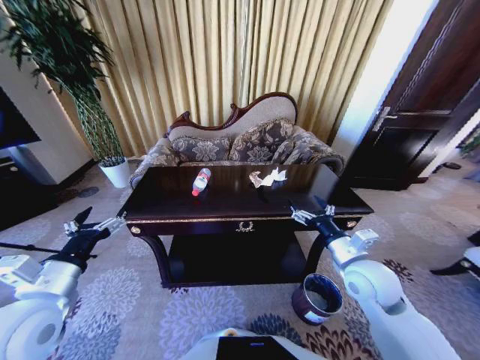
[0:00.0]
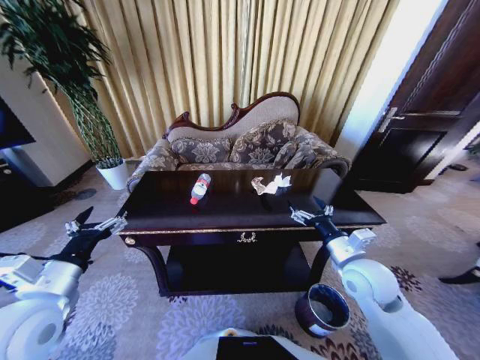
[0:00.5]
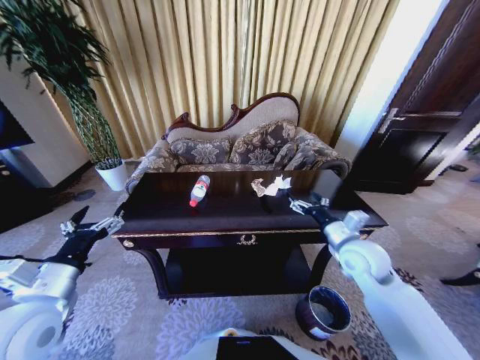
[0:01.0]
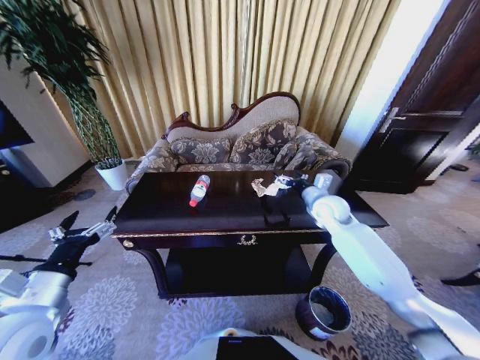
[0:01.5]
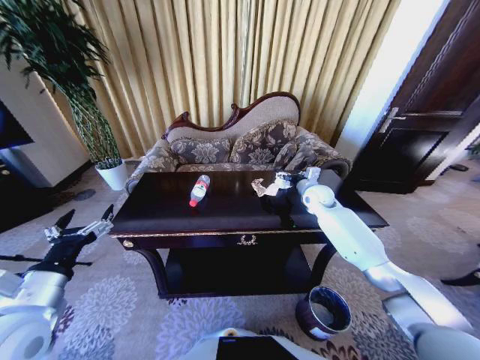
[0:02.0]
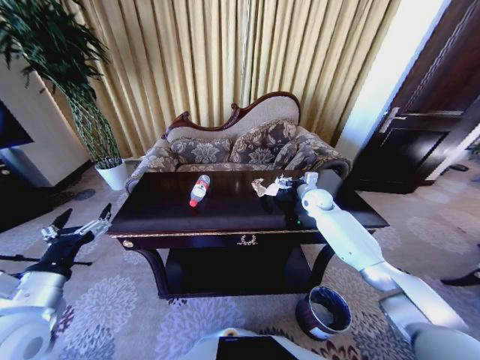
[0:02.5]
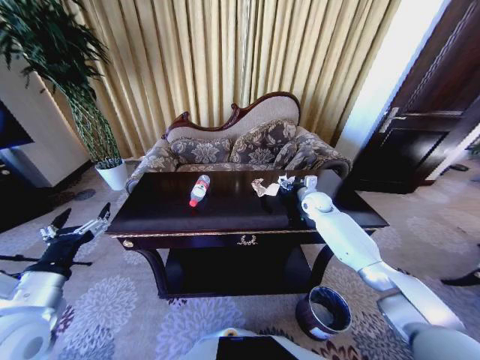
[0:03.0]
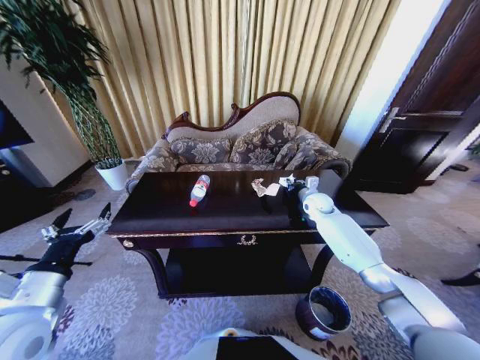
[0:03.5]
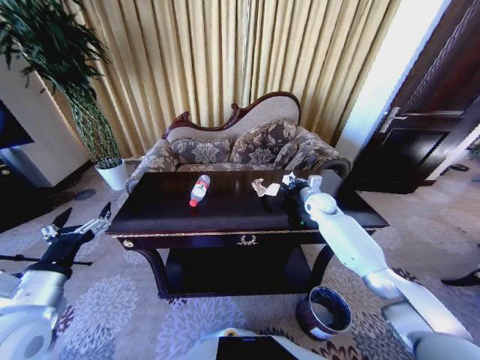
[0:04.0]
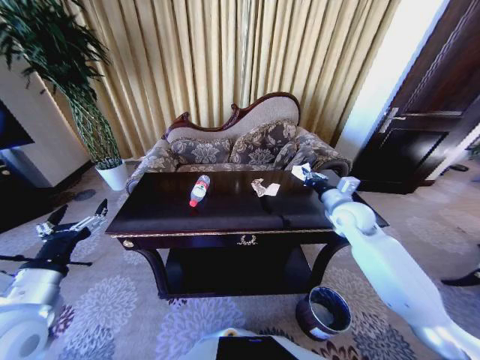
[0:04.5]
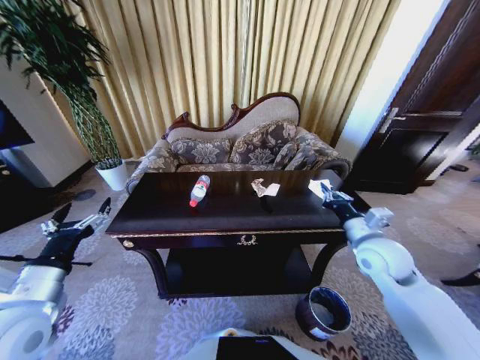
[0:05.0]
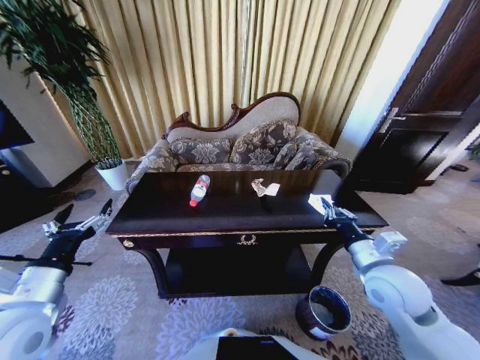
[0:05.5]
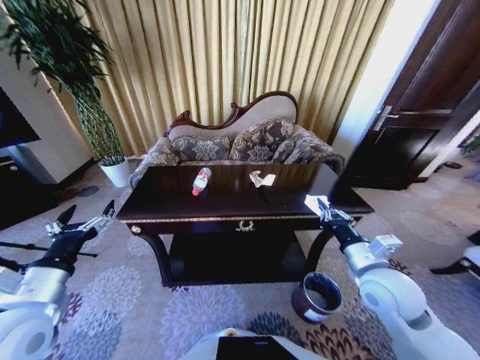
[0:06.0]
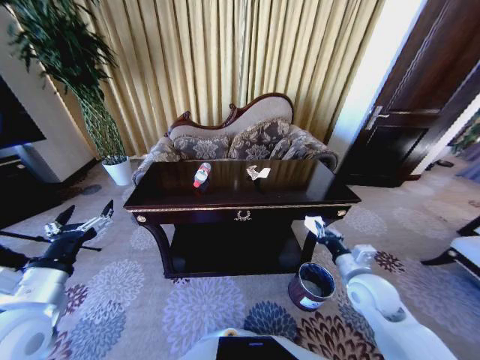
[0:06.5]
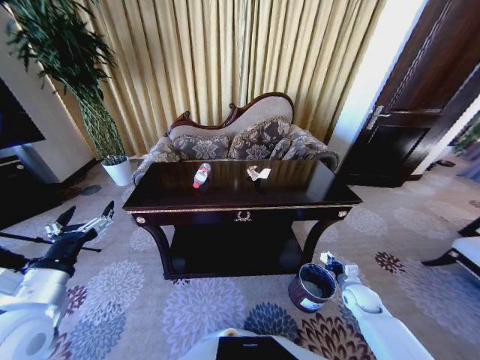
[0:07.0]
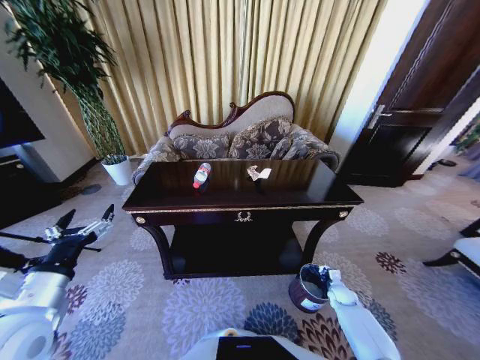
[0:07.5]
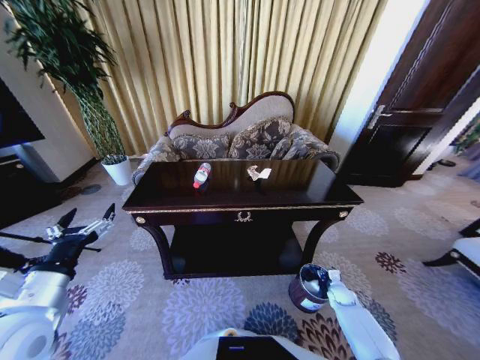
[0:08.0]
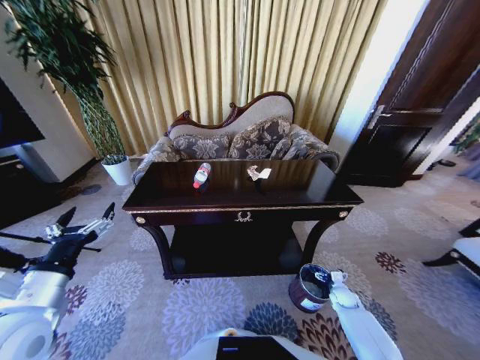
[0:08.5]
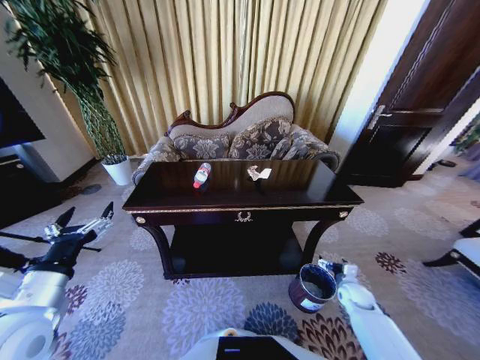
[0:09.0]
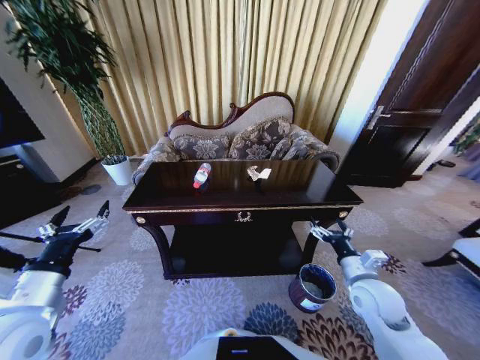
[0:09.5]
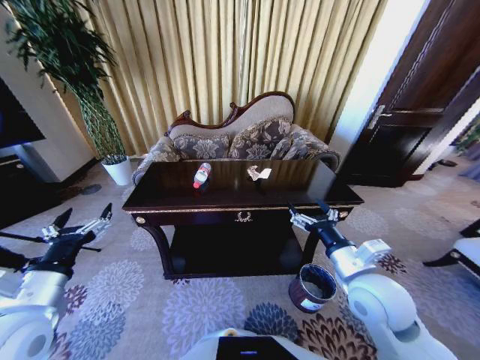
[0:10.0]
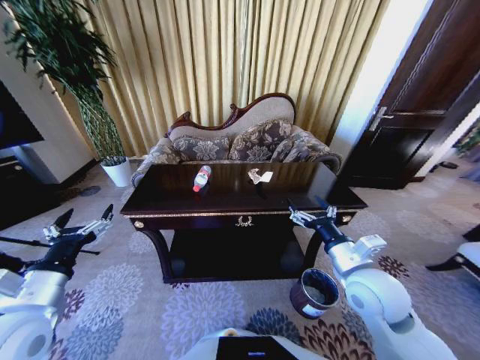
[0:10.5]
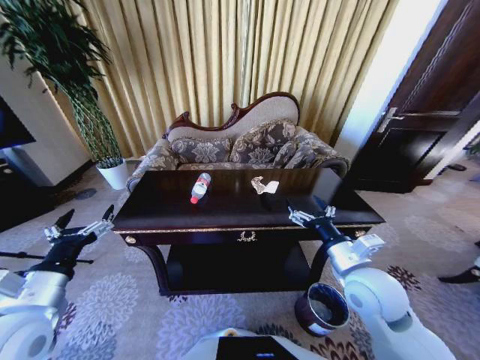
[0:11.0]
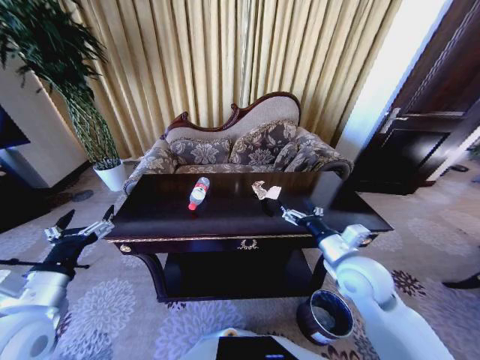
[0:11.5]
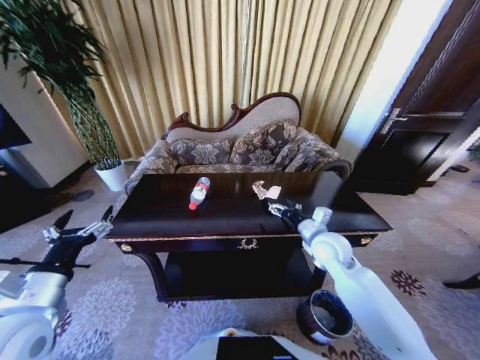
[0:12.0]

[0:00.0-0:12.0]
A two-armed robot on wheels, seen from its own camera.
Task of the whole recording: Move to the front of the table and place the trash on the table into the trash bin.
0:00.0 to 0:02.0: The right gripper shifts approximately 30 cm forward.
0:02.0 to 0:04.0: The right gripper closes its fingers.
0:04.0 to 0:06.0: The right gripper travels backward by roughly 30 cm.
0:06.0 to 0:08.0: The right gripper travels downward by about 35 cm, and opens.
0:08.0 to 0:10.0: The right gripper heads upward and to the left, covering approximately 40 cm, and opens up.
0:10.0 to 0:12.0: The right gripper is displaced forward by approximately 15 cm.

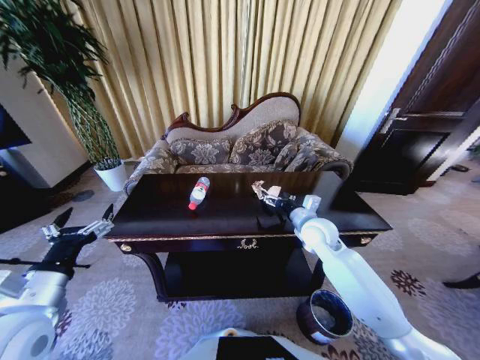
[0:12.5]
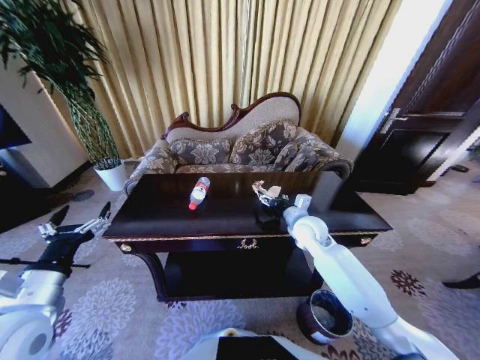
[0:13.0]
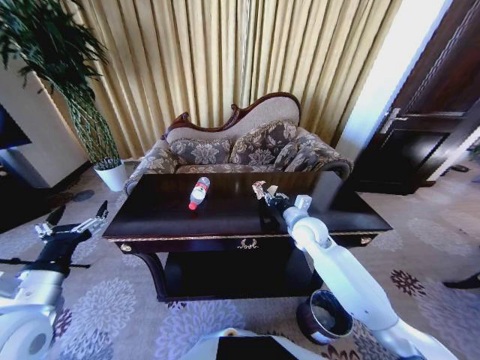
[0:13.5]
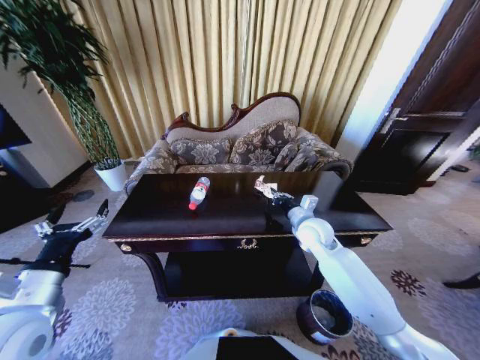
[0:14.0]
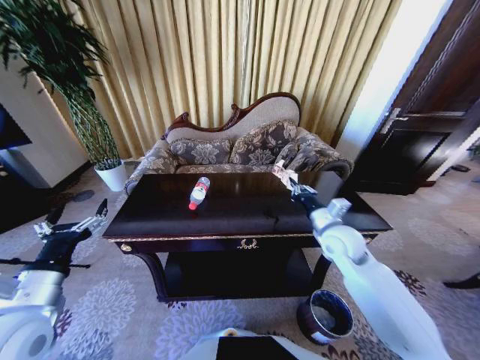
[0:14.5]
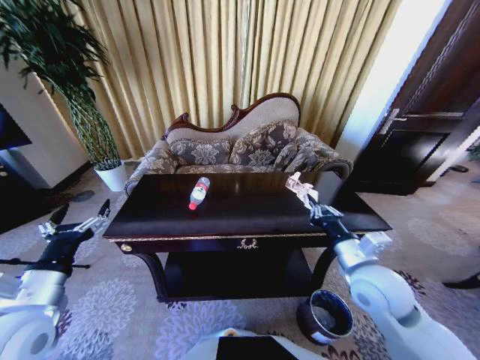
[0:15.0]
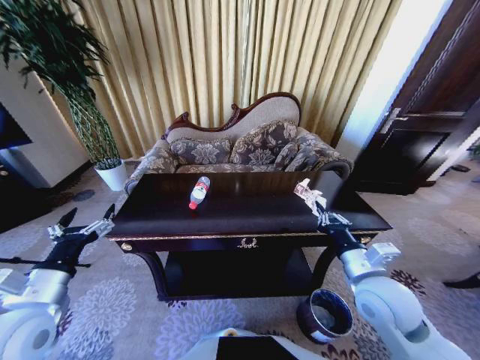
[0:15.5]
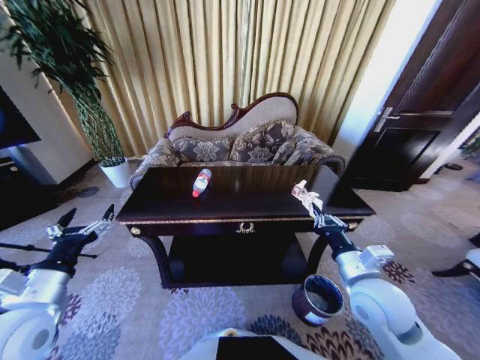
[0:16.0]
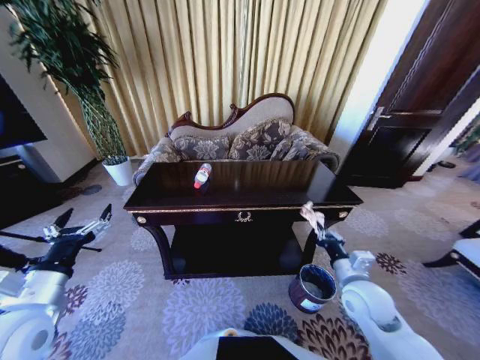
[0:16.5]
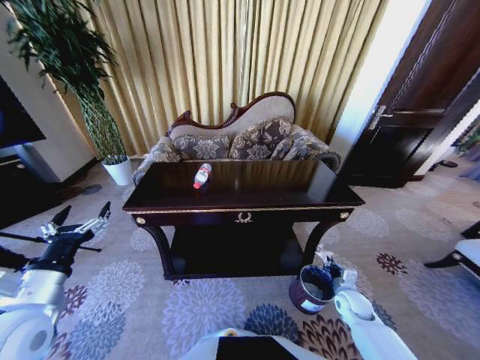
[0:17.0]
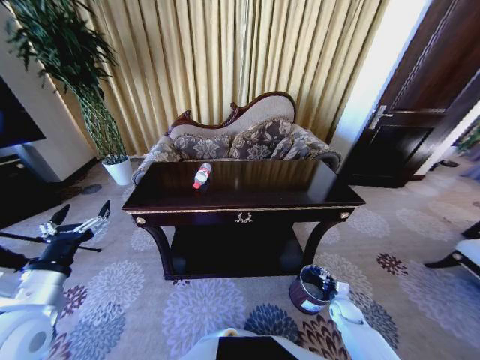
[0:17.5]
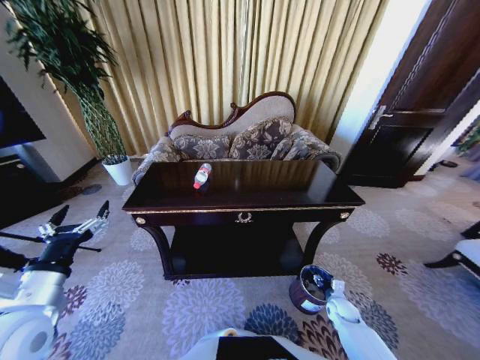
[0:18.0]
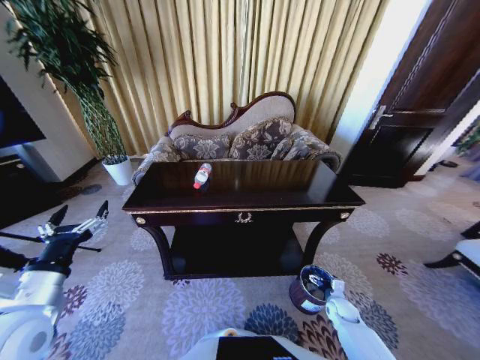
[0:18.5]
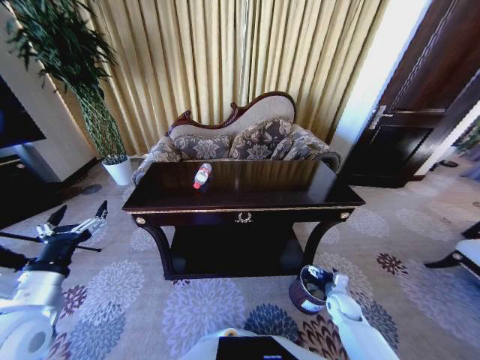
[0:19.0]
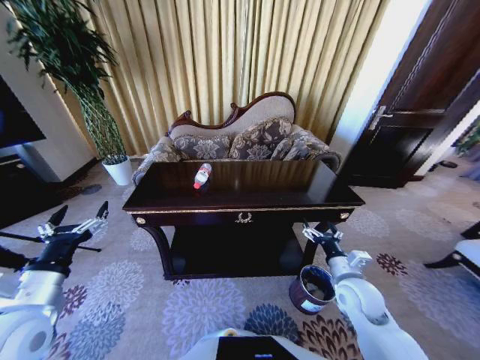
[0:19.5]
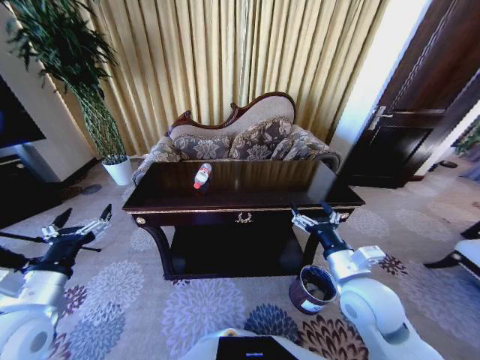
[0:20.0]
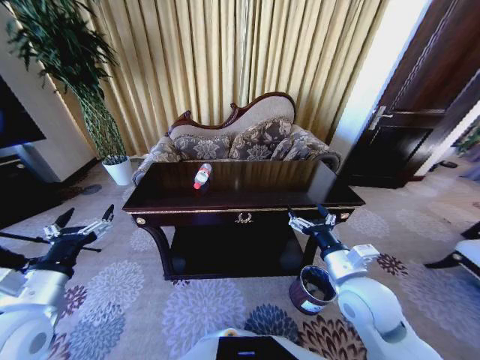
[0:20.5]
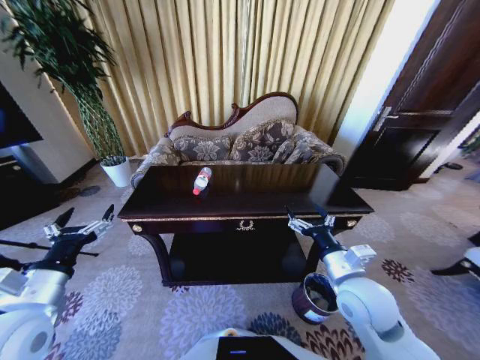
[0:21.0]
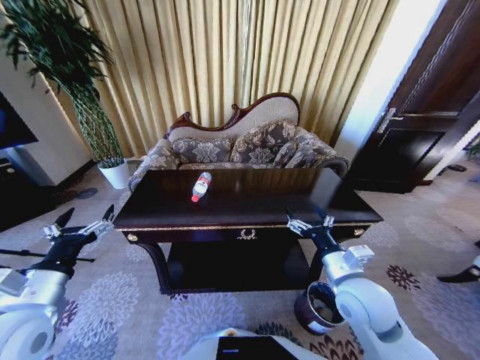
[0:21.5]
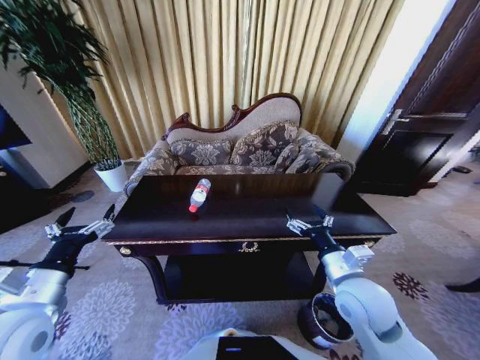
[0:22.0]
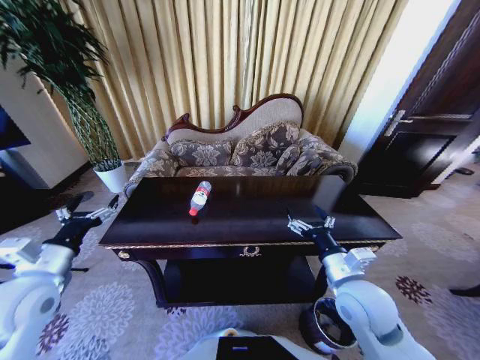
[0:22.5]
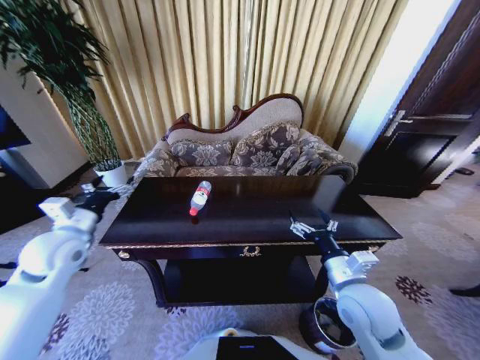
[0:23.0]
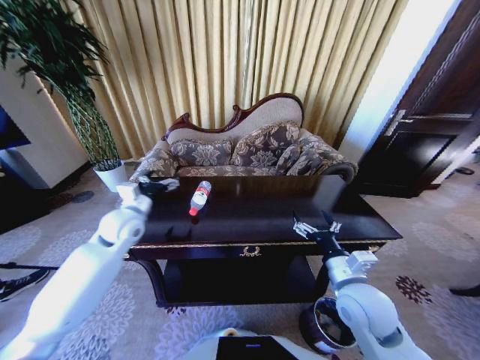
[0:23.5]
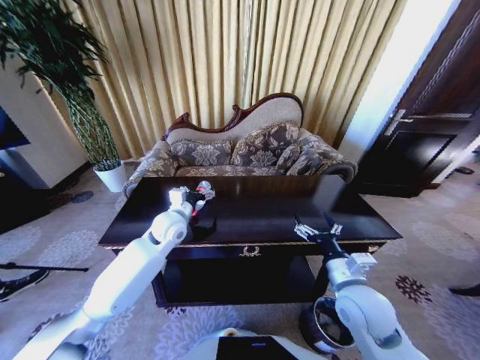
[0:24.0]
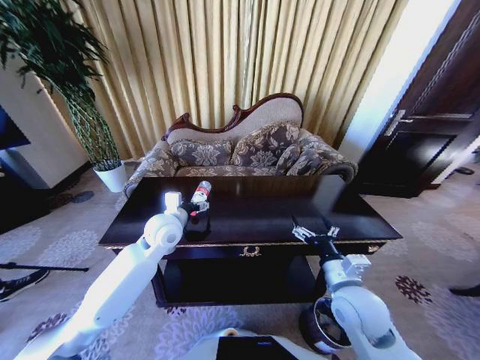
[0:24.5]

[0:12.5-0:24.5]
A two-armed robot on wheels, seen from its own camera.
Task of the whole recording: Move to the front of the table and place the trash on the table into the trash bin.
0:12.5 to 0:14.5: The right gripper ends up about 5 cm from where it was, and closes up.
0:14.5 to 0:16.5: The right gripper shifts some 15 cm backward and downward.
0:16.5 to 0:18.5: The right gripper shifts roughly 25 cm downward, and opens up.
0:18.5 to 0:20.5: The right gripper goes some 35 cm upward and to the left.
0:20.5 to 0:22.5: The left gripper shifts some 5 cm forward.
0:22.5 to 0:24.5: The left gripper moves to the right and forward, roughly 25 cm.

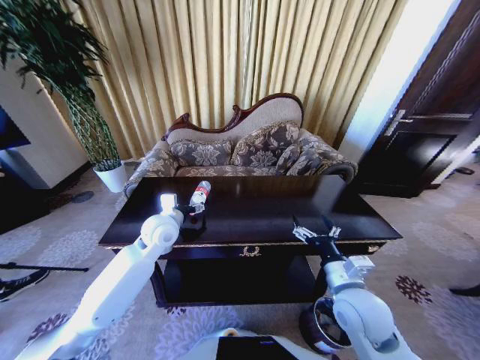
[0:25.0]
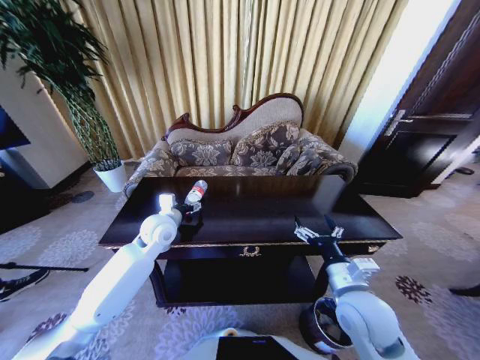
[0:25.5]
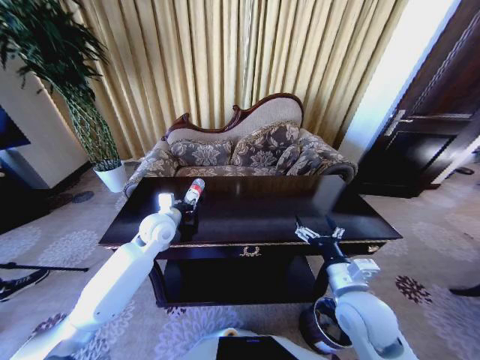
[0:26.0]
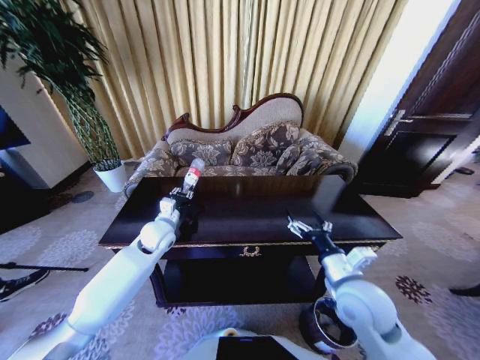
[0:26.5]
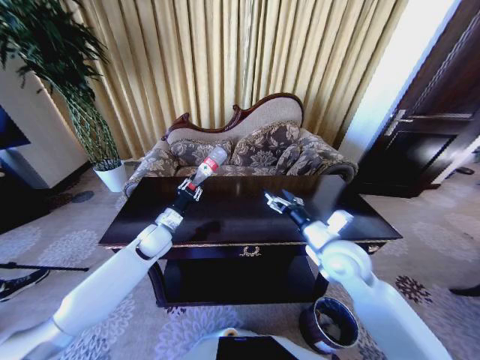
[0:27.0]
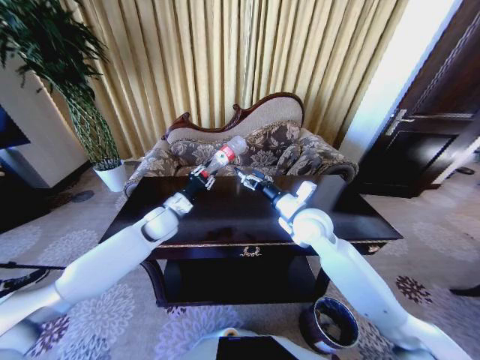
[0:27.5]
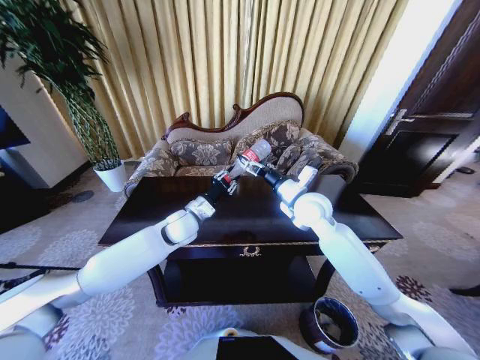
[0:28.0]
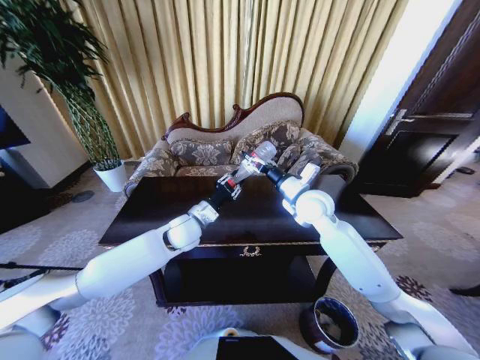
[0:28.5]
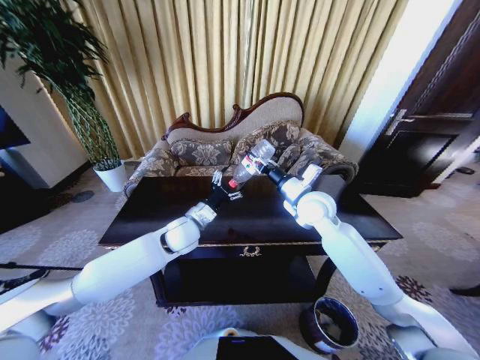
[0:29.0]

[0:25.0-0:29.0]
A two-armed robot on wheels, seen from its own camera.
Task of the whole recording: Move to the front of the table and place the trash on the table into the trash bin.
0:25.0 to 0:27.0: The left gripper is displaced downward by some 5 cm, and closes its fingers; the right gripper moves forward, some 10 cm.
0:27.0 to 0:29.0: The left gripper is displaced to the right by about 10 cm, and opens its fingers. The right gripper travels forward by approximately 15 cm, and closes.
